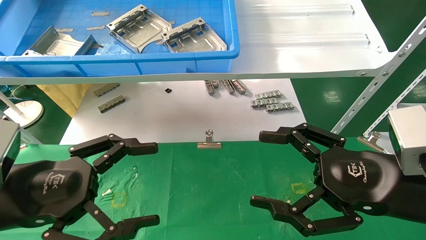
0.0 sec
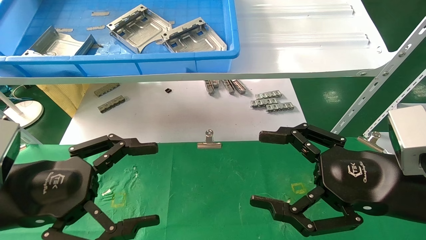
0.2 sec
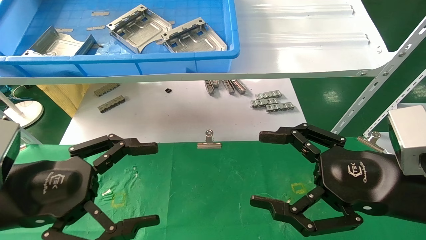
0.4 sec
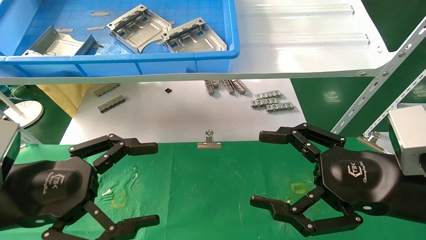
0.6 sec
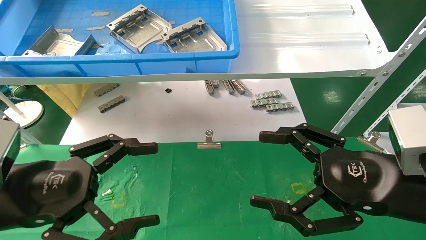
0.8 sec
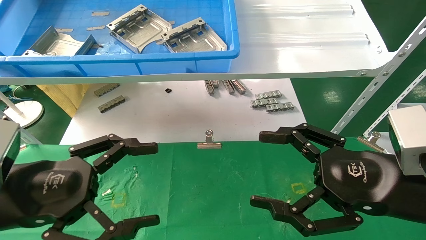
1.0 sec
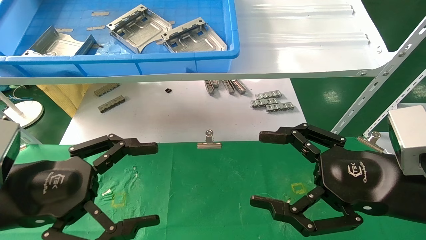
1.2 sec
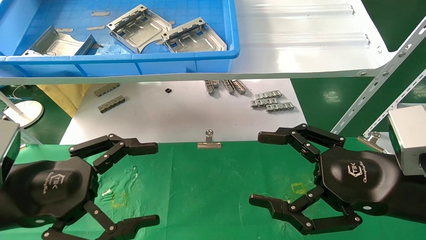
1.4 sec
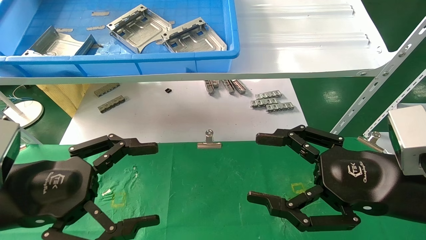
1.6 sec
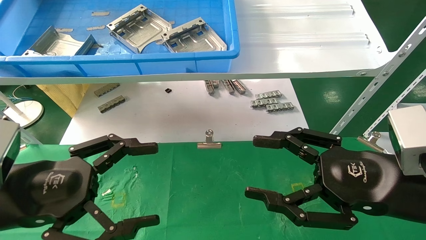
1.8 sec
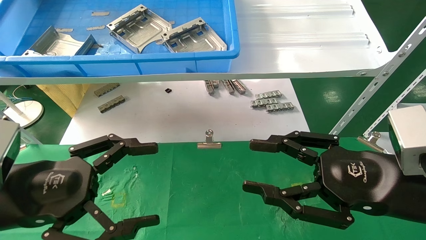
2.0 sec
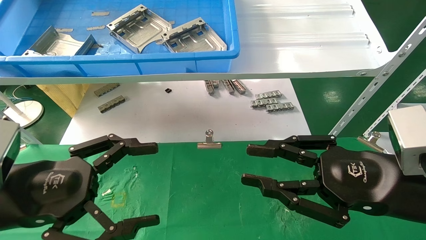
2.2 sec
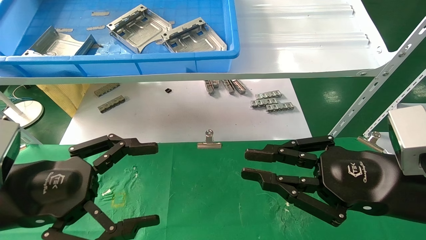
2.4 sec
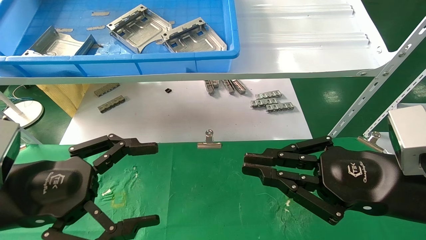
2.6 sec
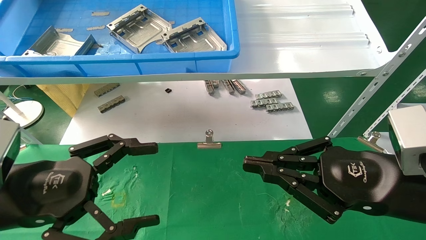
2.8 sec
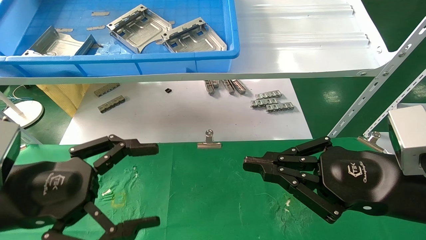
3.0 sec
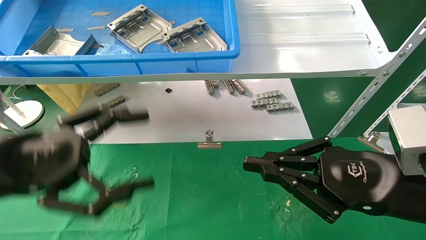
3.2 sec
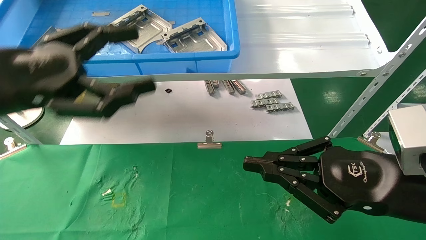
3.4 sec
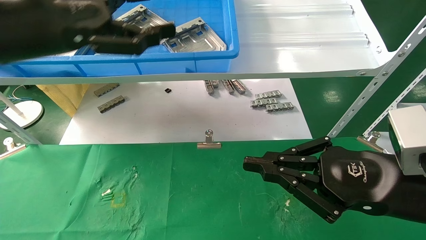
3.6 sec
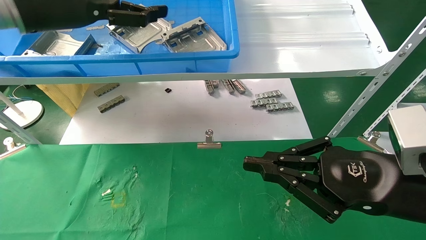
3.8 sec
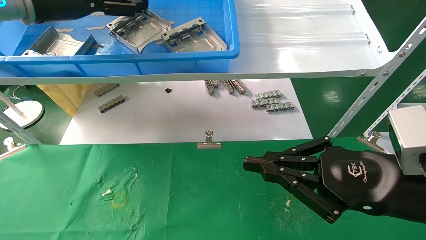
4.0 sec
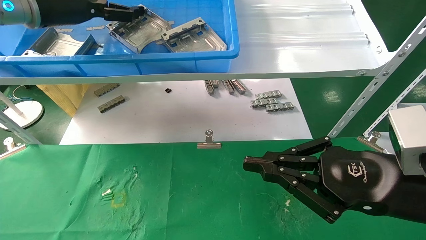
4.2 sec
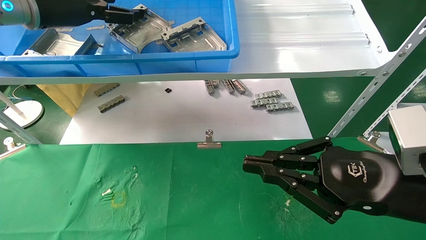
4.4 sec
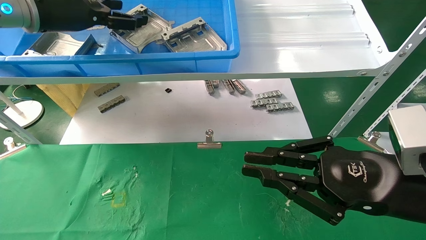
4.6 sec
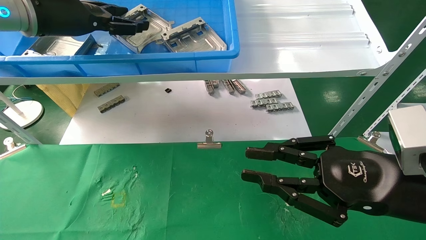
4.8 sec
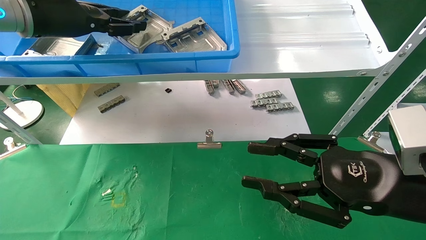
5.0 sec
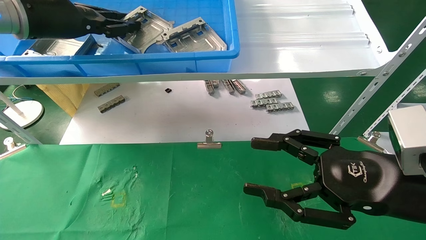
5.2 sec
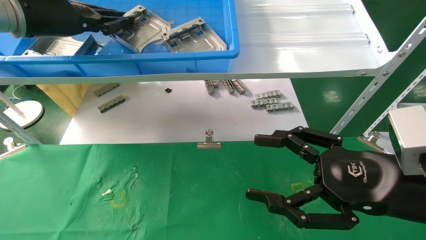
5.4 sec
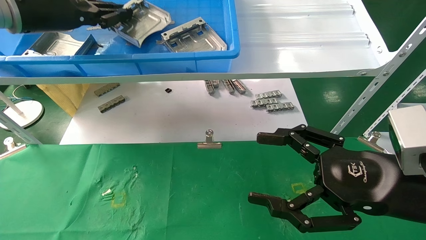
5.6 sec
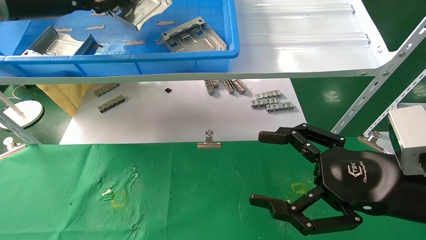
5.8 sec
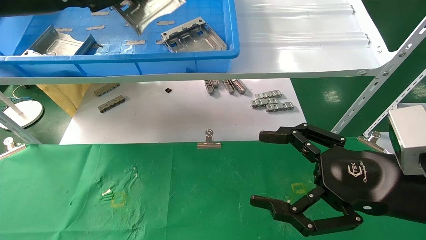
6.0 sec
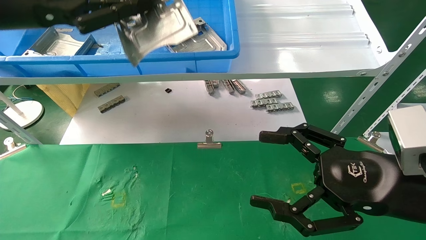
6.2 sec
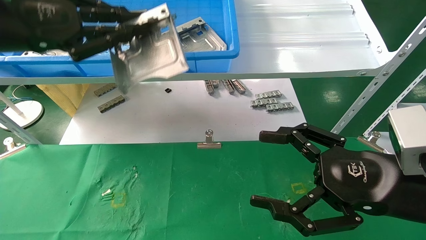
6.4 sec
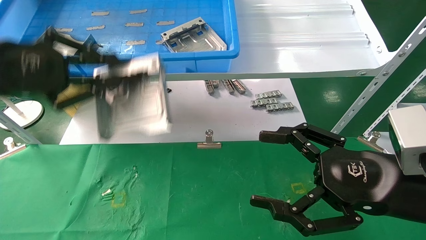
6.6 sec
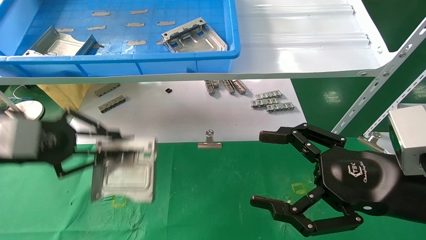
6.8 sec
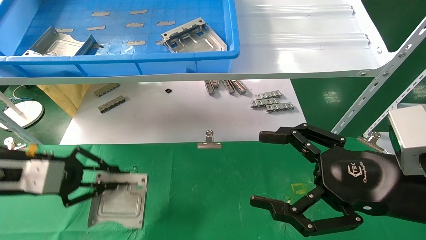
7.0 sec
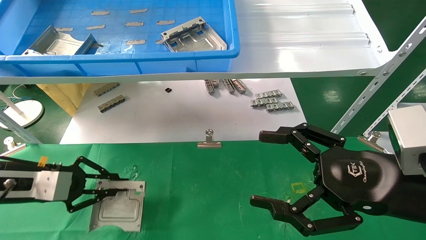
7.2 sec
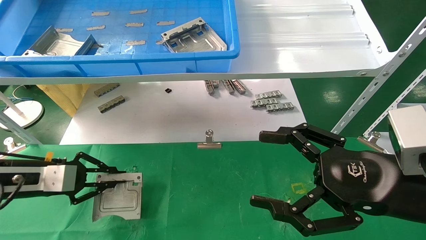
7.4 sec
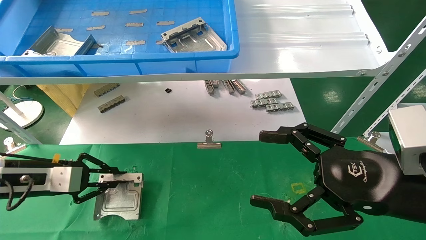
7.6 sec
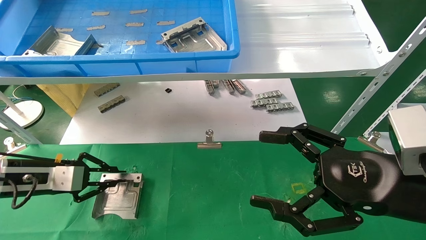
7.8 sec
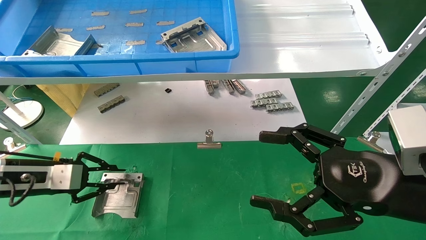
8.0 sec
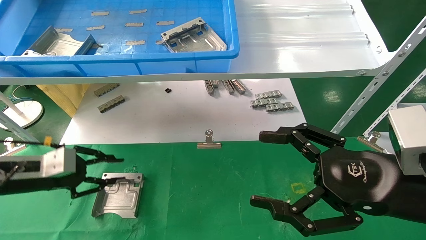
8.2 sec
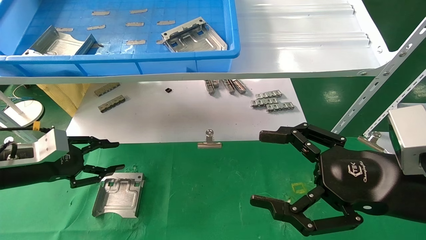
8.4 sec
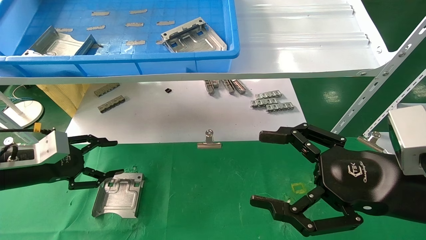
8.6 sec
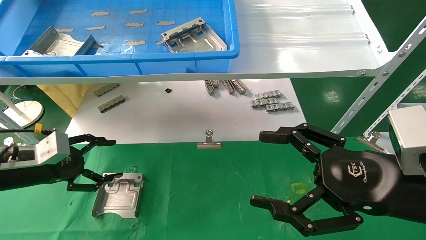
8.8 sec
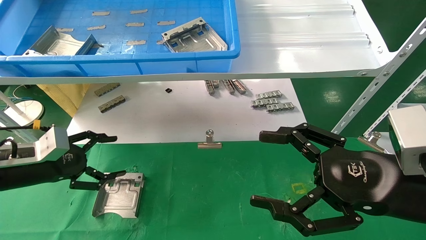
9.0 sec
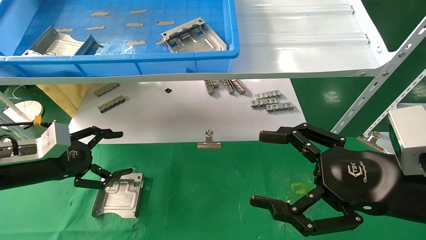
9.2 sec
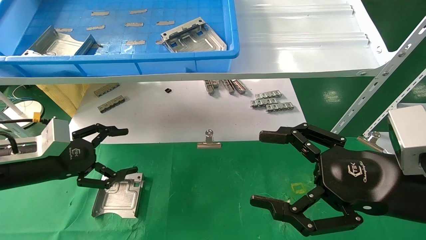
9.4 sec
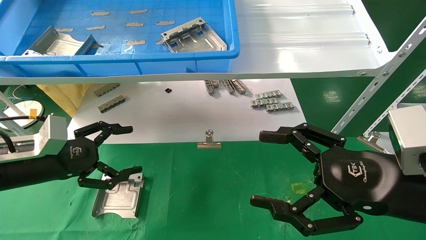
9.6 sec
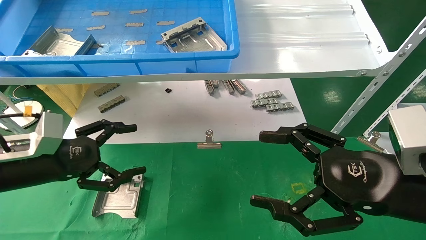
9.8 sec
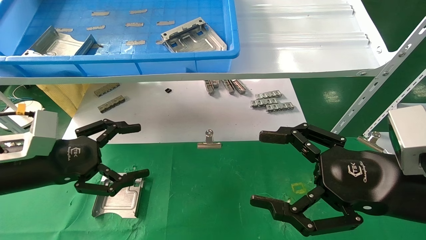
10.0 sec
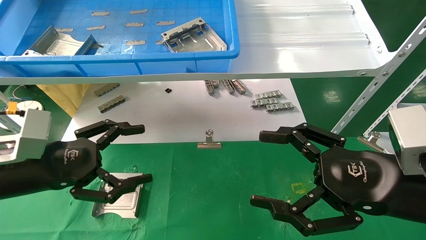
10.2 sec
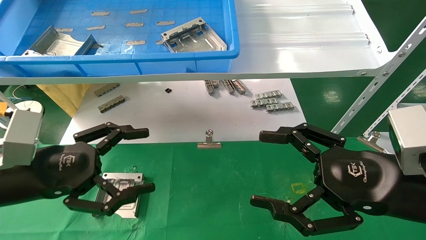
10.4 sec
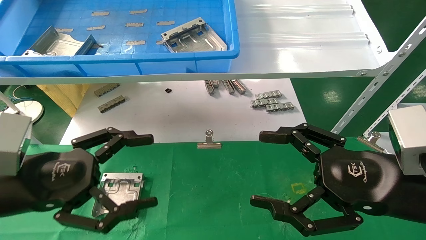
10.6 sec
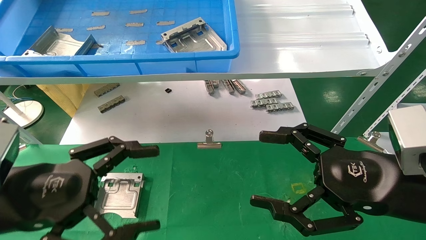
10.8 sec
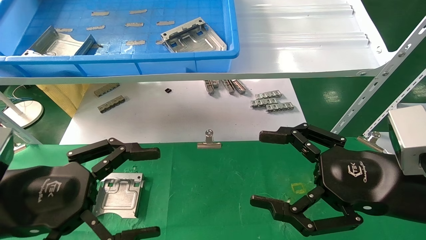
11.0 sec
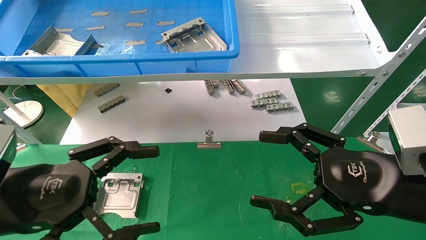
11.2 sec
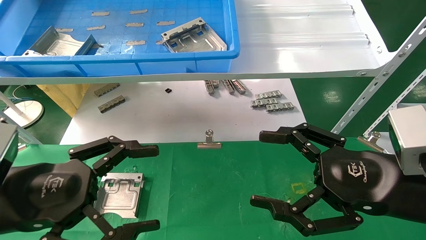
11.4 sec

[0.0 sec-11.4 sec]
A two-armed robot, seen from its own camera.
Task of the whole recording: use the mechanical arm to pick up the parts and place them on the table.
Step, 2.2 sec to 5.8 sec: Pick up the hard drive bracket from the feeding area.
Step, 6.0 sec to 8.4 sec: Place the hard drive bracket into the box.
0.0 sec to 1.4 sec: Both grippers stay about where they are.
1.4 sec to 2.8 sec: The right gripper closes up.
2.8 sec to 4.2 sec: The left gripper goes roughly 30 cm upward and forward.
4.2 sec to 5.6 sec: The left gripper closes up. The right gripper opens its fingers.
5.6 sec to 7.2 sec: The left gripper is displaced downward by some 25 cm.
7.2 sec to 8.6 sec: The left gripper opens up.
8.6 sec to 10.0 sec: The left gripper moves to the right and backward, about 10 cm, and opens.
10.0 sec to 11.4 sec: The left gripper is displaced backward by roughly 10 cm.

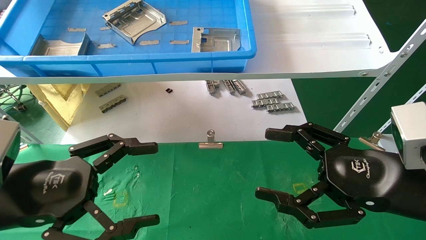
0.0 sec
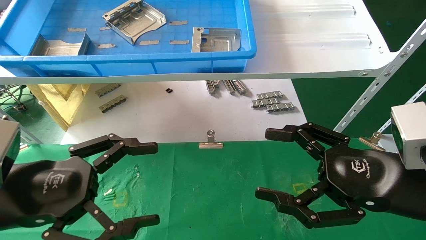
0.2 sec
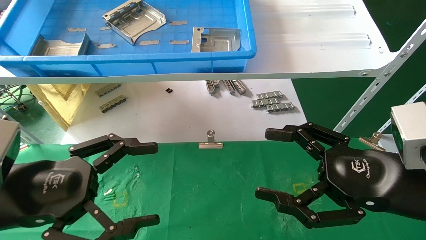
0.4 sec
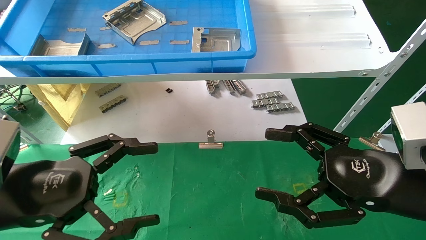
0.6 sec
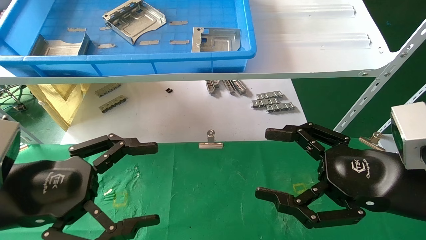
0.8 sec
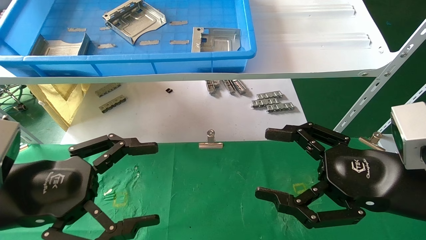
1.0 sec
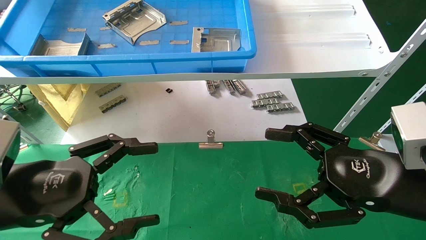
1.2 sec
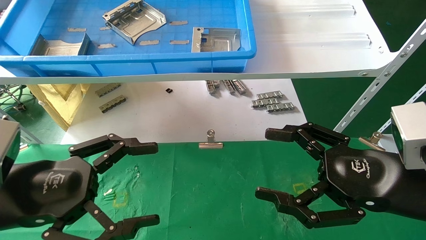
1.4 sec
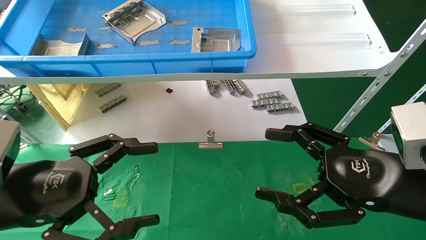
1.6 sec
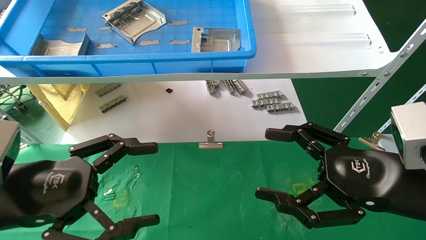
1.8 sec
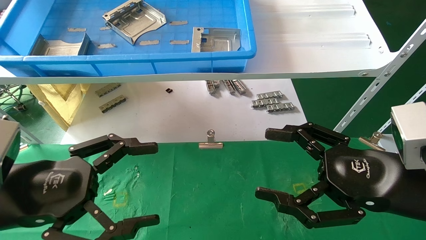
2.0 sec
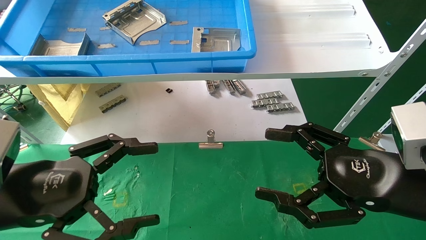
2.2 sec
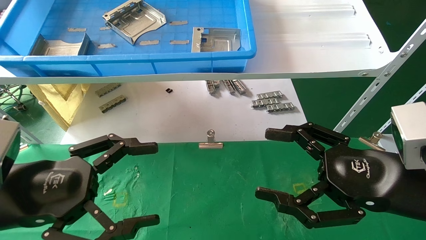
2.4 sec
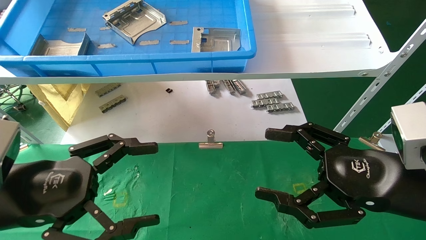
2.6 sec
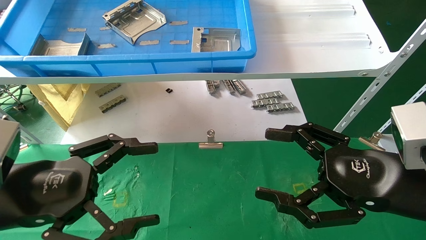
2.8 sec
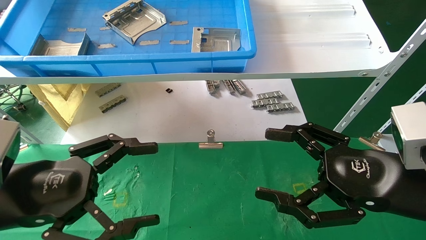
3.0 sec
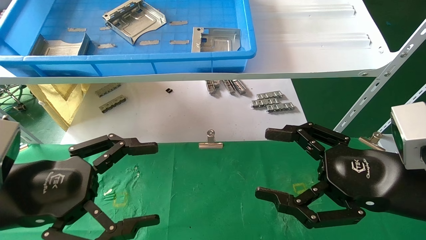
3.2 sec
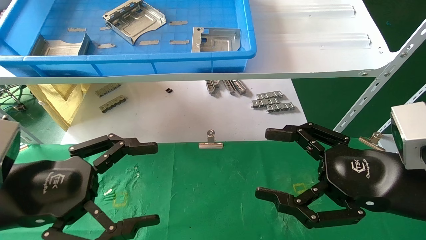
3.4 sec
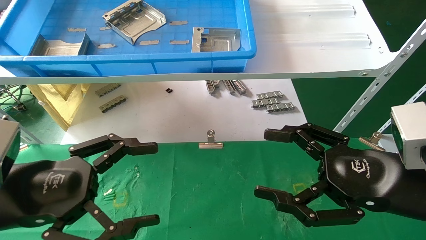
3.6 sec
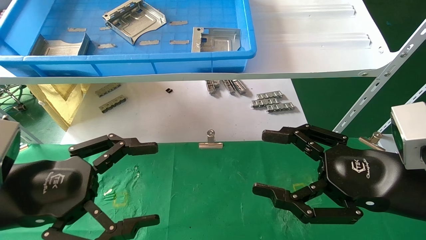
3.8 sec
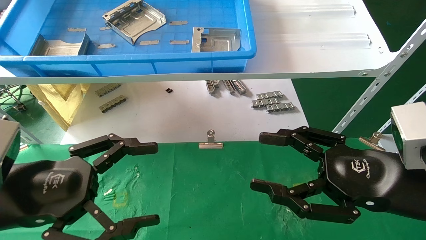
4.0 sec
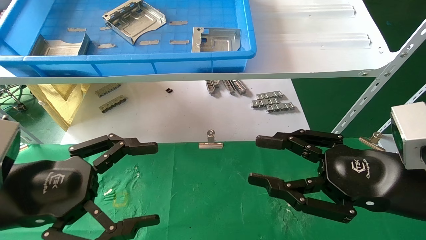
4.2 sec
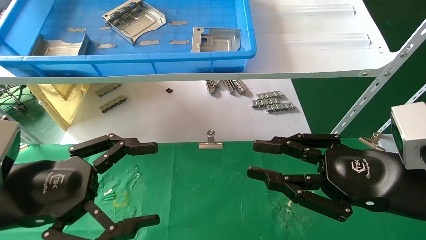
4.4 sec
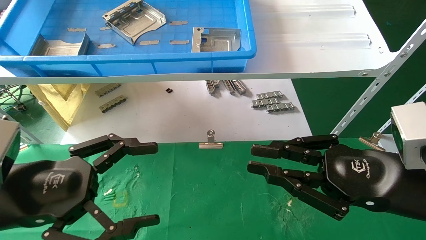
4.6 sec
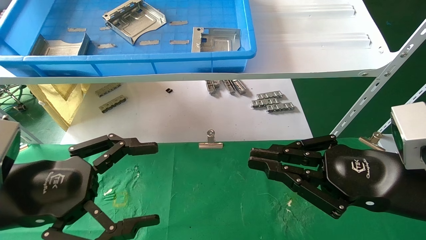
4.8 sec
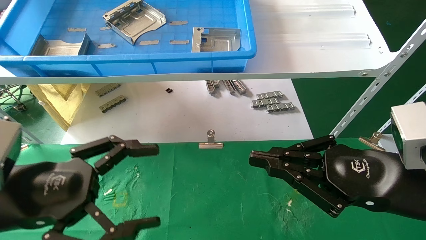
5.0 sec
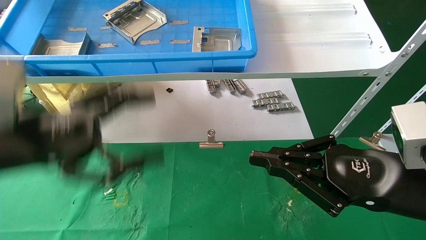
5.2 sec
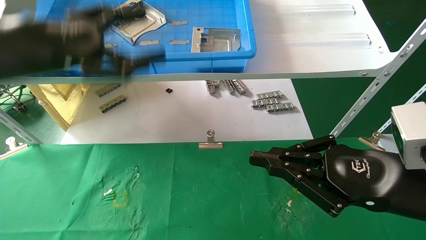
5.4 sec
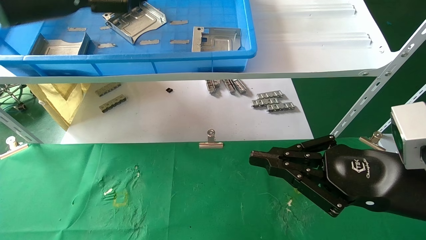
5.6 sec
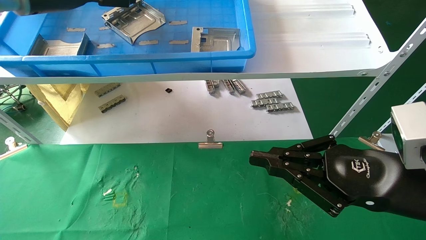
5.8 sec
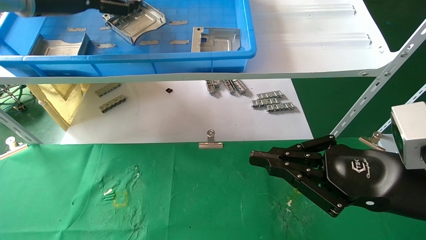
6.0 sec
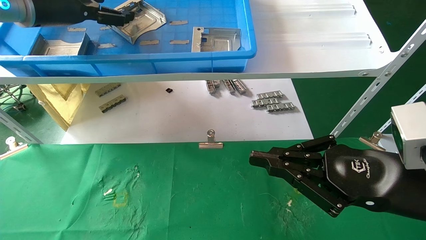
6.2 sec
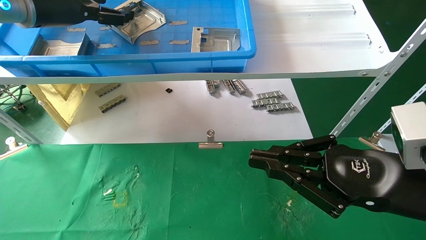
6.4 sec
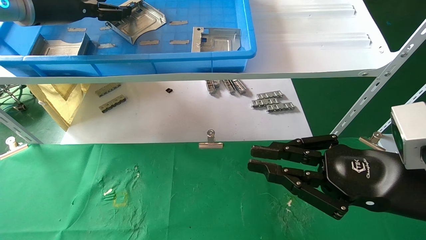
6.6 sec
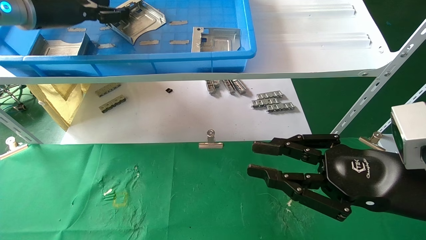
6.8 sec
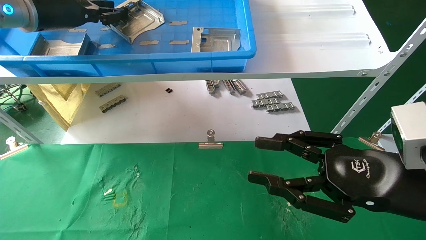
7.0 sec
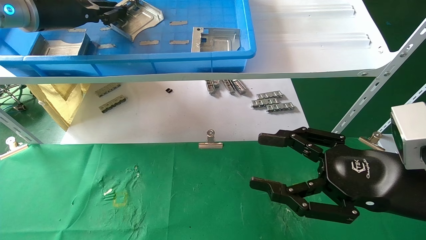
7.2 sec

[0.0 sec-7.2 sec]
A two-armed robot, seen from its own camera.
Task of the whole recording: use the mechanical arm to pick up the parts and place them on the table.
0.0 sec to 2.8 sec: Both grippers stay put.
2.8 sec to 4.4 sec: The right gripper closes its fingers.
4.4 sec to 5.8 sec: The right gripper closes its fingers. Meanwhile the left gripper travels upward and forward by about 30 cm.
5.8 sec to 7.2 sec: The right gripper opens up; the left gripper closes its fingers.
